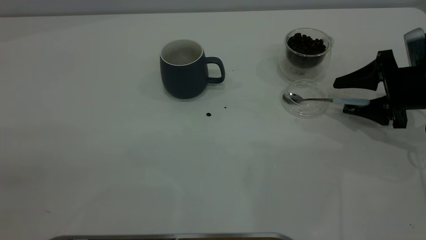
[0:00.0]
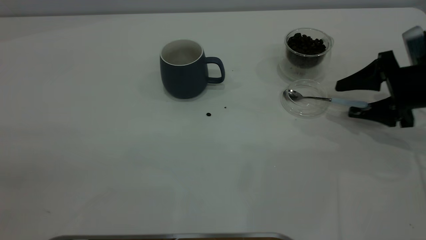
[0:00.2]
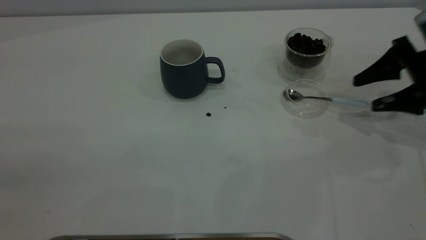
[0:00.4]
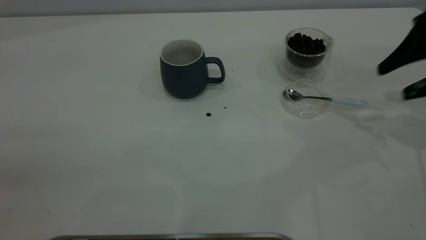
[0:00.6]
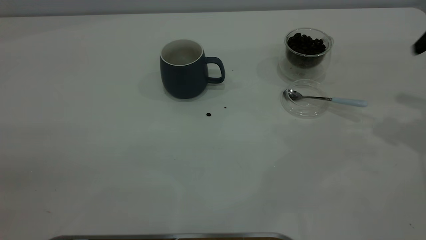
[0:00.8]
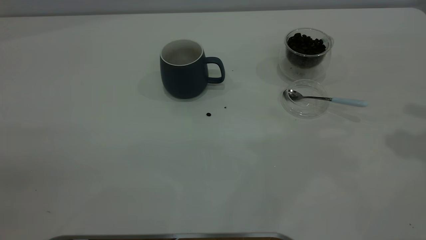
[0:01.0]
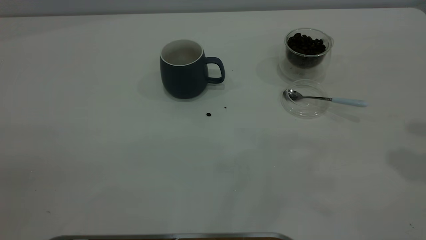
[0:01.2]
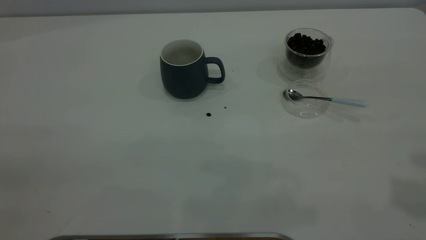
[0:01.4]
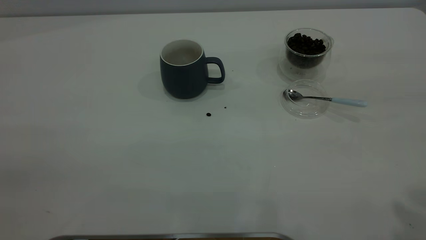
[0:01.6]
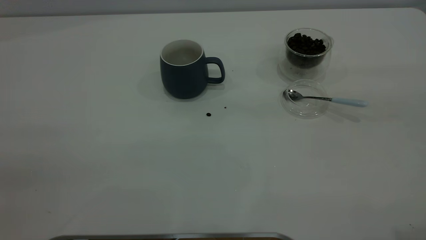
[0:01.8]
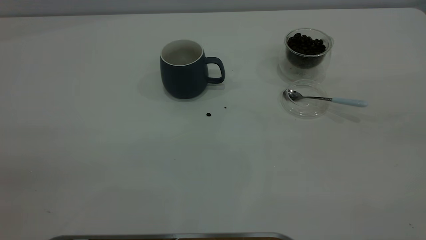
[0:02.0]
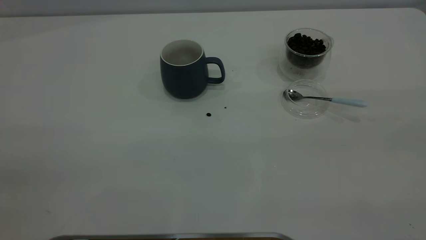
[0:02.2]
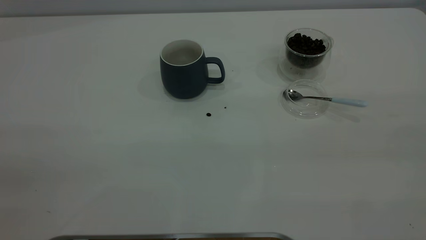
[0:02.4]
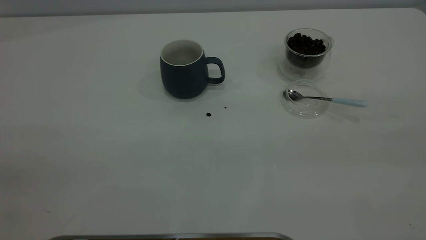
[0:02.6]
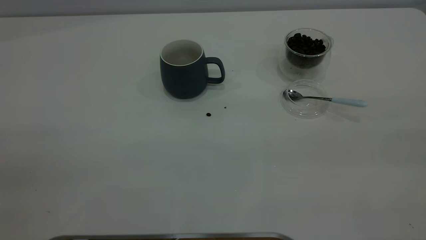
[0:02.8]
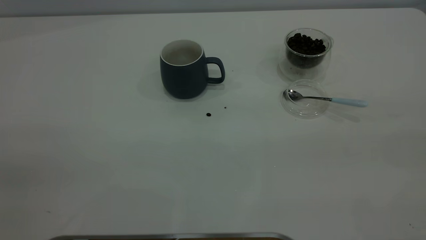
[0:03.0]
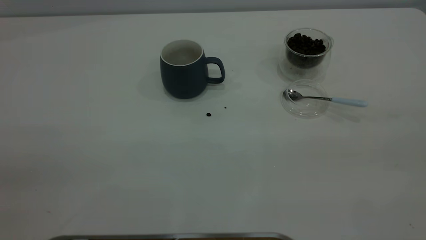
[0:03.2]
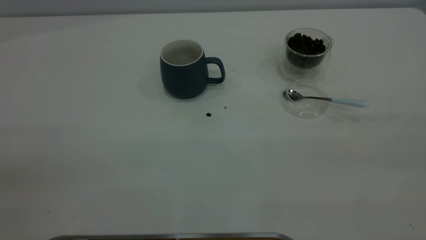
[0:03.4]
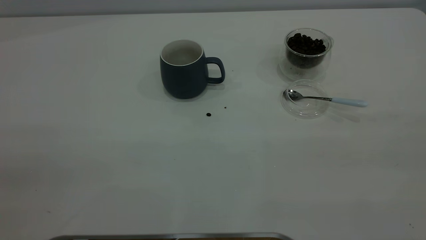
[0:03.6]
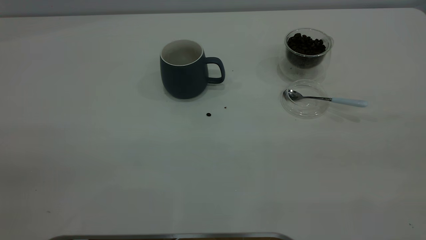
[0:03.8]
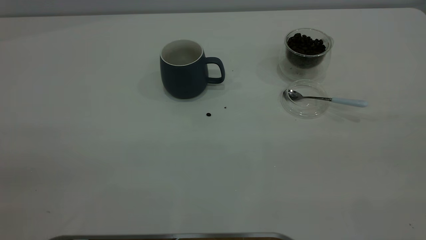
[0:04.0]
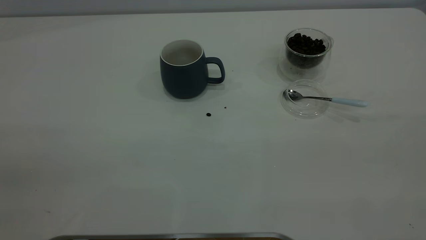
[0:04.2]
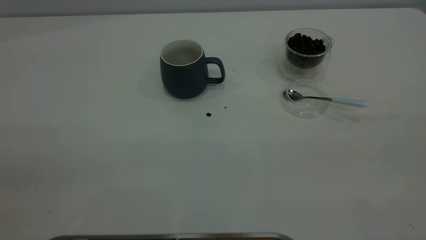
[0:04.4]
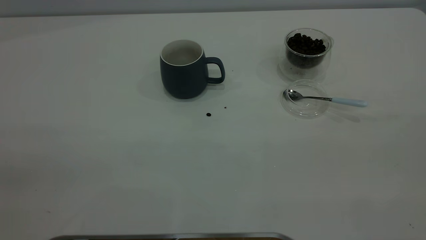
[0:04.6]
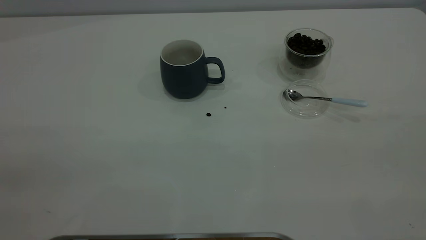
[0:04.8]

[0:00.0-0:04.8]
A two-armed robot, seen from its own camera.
Task of the whole recording: the left gripper place the grey cup in the center of the table, the right gripper take the blue spoon from the cup lid and scoop out the coffee beans from the coffee cup and put them into the grey cup, the right gripper put the spoon back into the cup lid.
0:00.0 to 0:01.6: The right gripper shifts about 40 cm upward and backward.

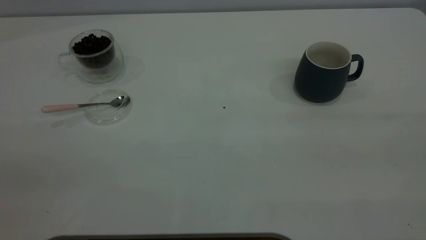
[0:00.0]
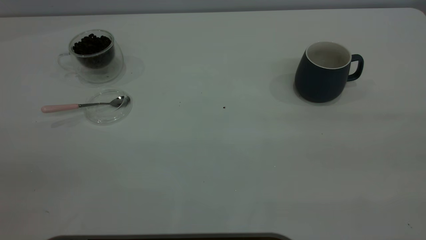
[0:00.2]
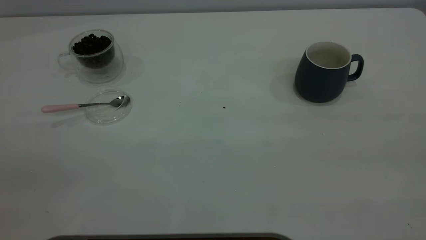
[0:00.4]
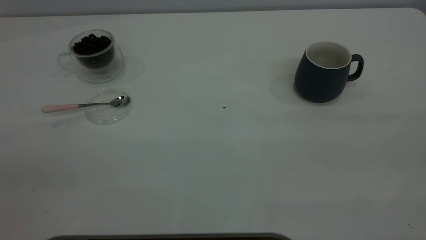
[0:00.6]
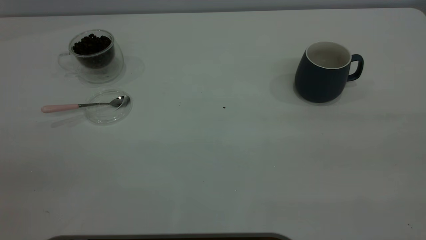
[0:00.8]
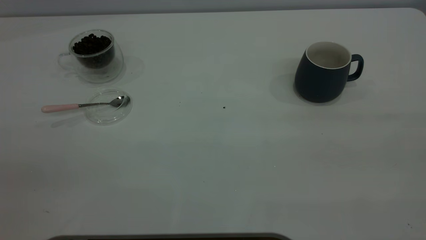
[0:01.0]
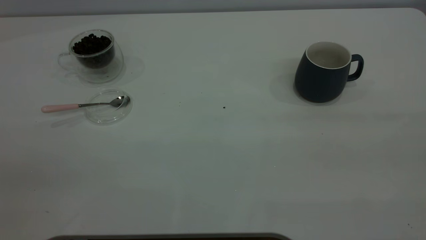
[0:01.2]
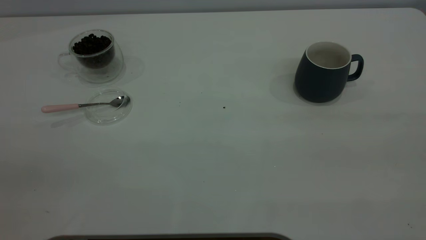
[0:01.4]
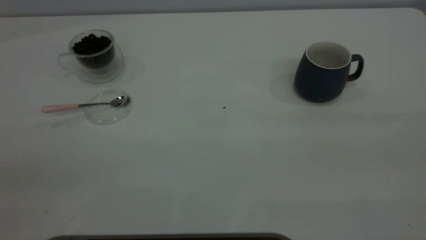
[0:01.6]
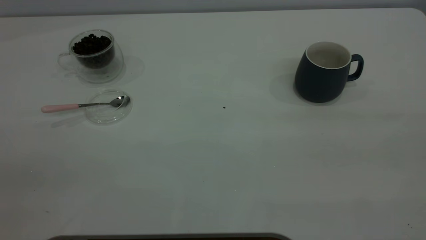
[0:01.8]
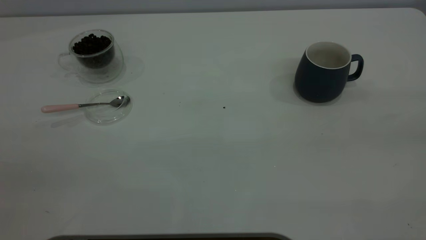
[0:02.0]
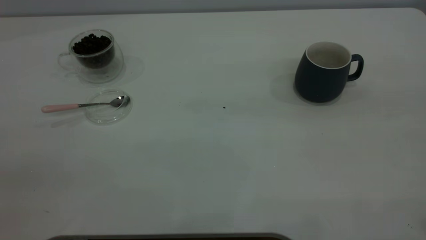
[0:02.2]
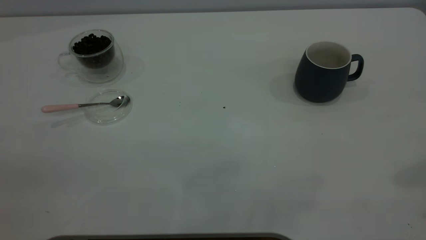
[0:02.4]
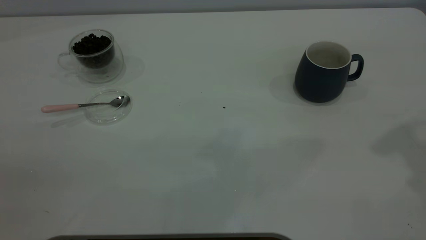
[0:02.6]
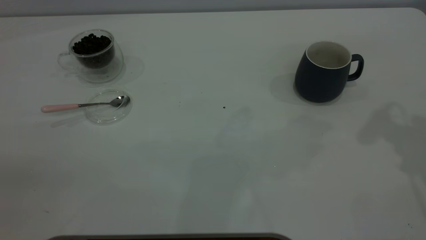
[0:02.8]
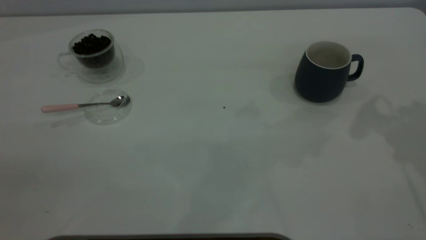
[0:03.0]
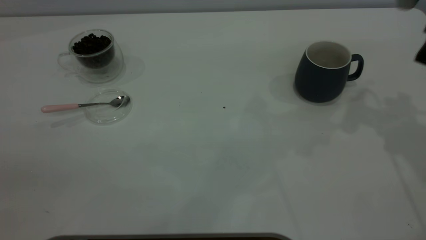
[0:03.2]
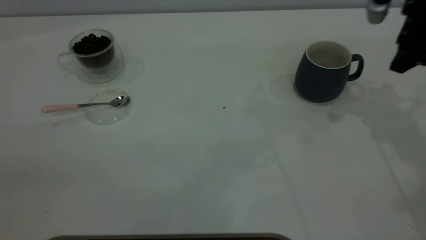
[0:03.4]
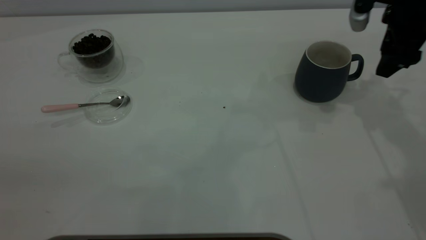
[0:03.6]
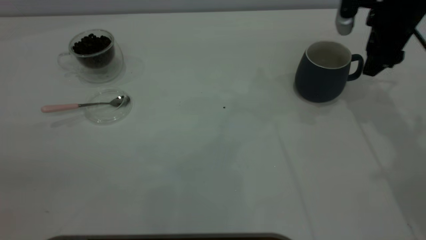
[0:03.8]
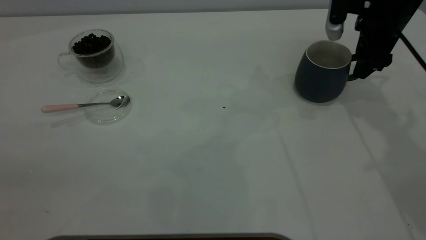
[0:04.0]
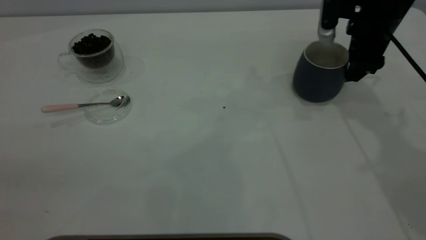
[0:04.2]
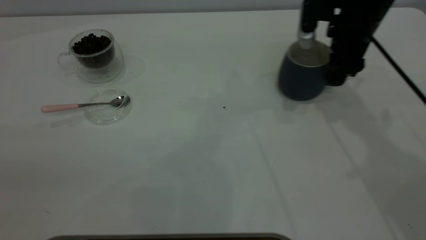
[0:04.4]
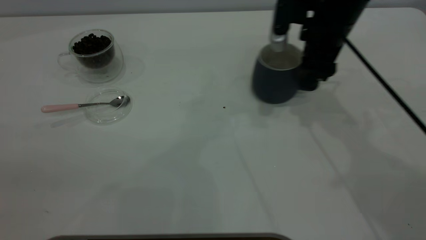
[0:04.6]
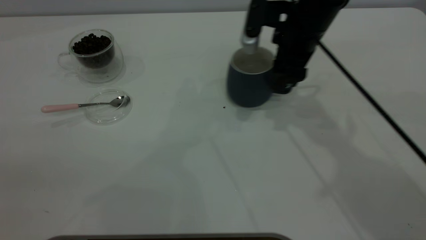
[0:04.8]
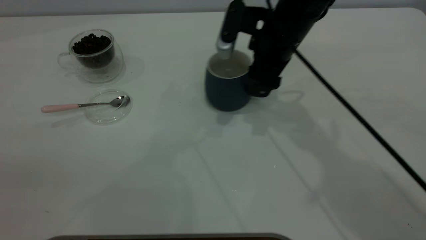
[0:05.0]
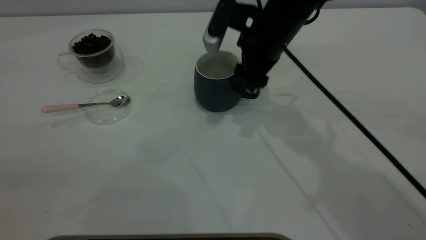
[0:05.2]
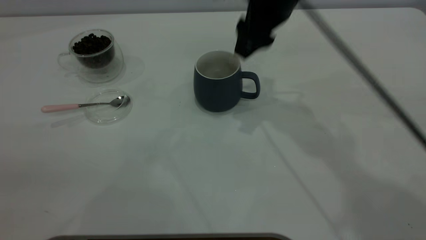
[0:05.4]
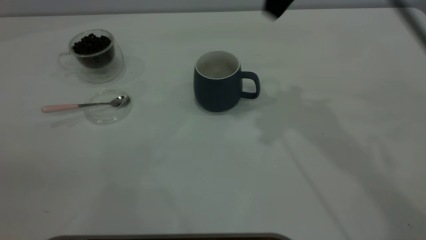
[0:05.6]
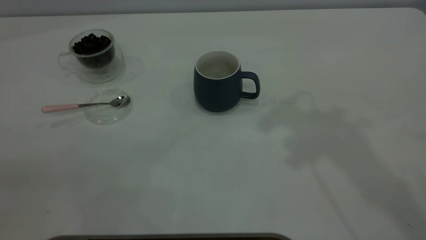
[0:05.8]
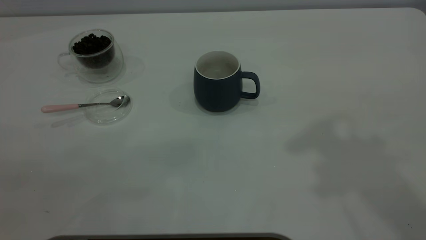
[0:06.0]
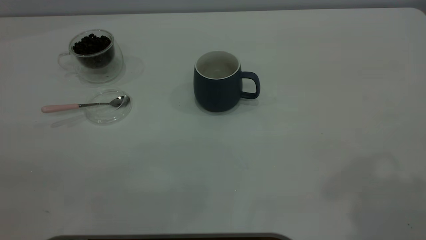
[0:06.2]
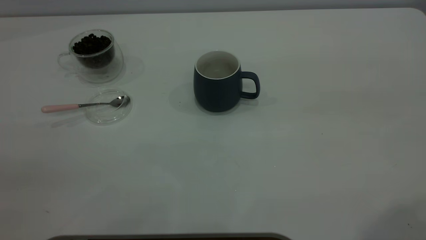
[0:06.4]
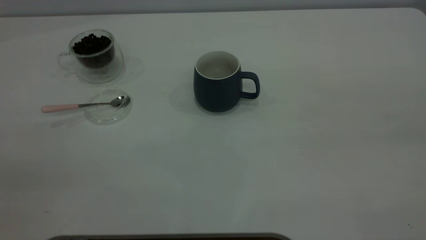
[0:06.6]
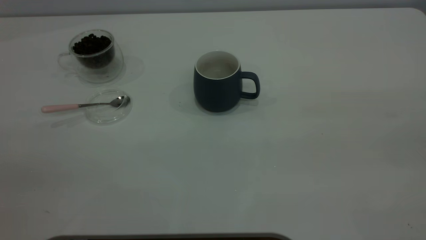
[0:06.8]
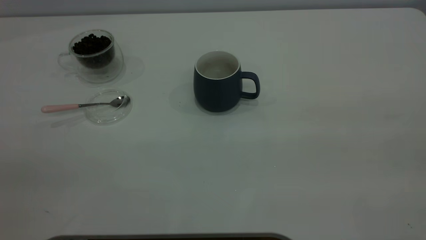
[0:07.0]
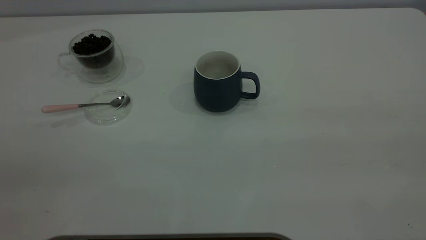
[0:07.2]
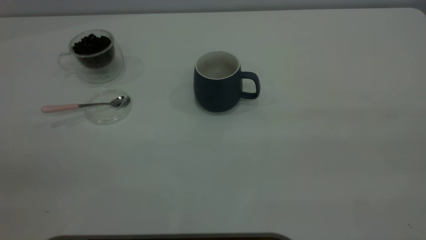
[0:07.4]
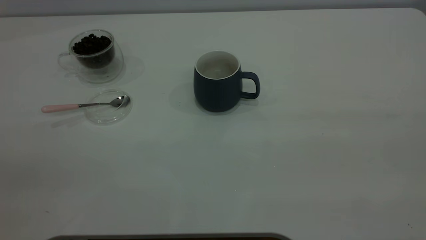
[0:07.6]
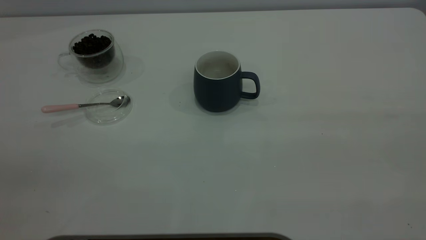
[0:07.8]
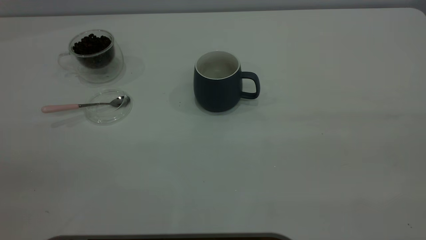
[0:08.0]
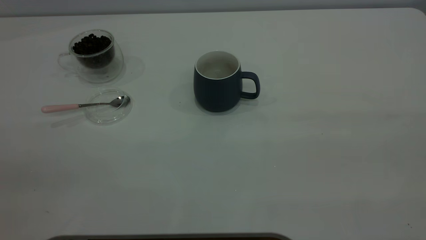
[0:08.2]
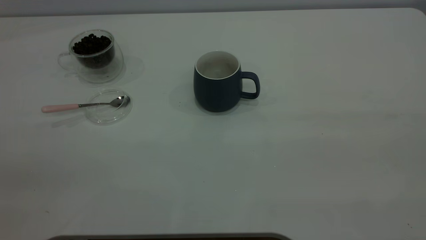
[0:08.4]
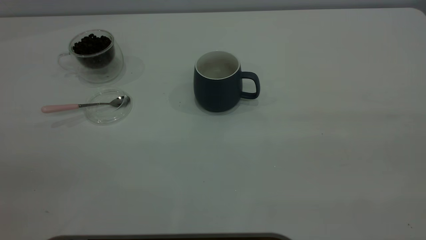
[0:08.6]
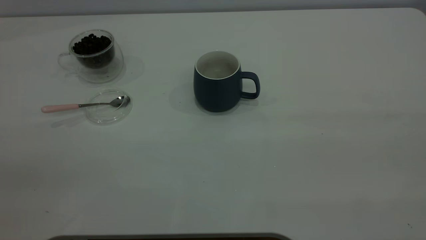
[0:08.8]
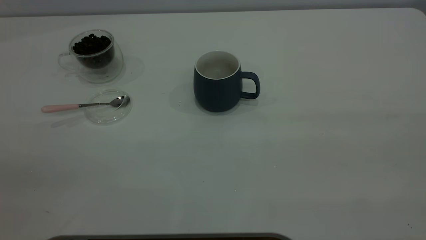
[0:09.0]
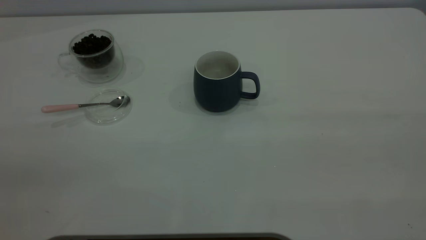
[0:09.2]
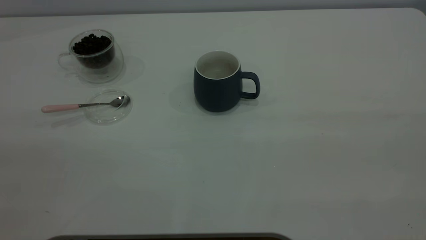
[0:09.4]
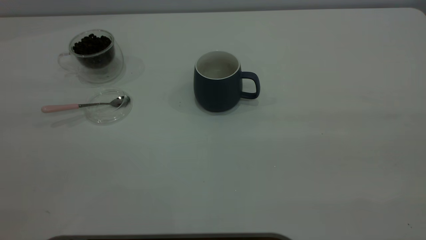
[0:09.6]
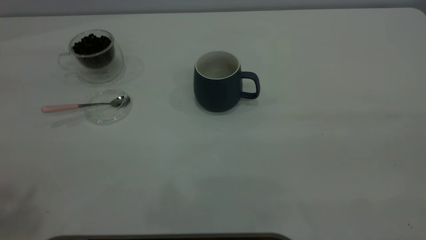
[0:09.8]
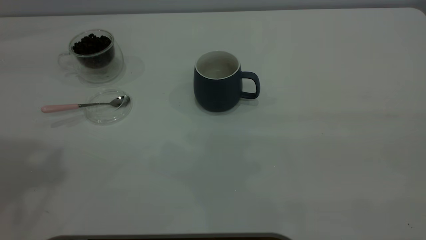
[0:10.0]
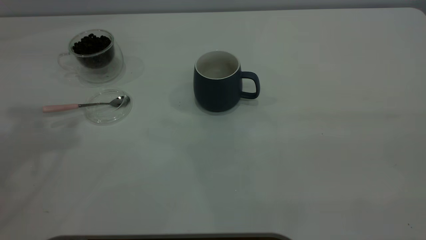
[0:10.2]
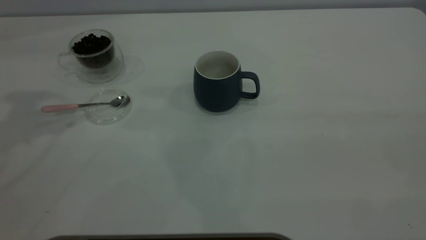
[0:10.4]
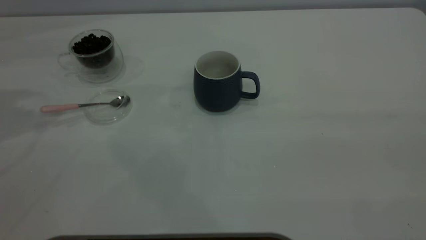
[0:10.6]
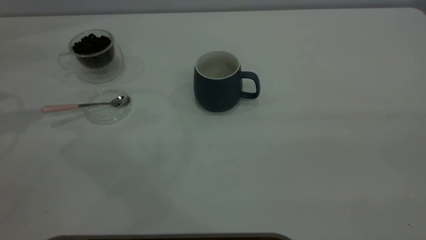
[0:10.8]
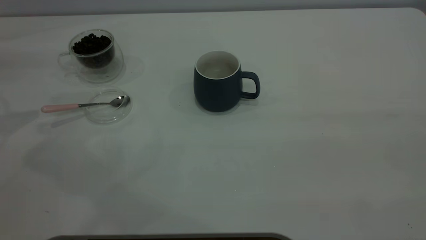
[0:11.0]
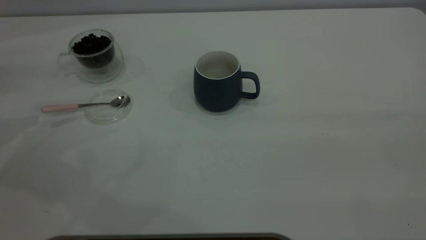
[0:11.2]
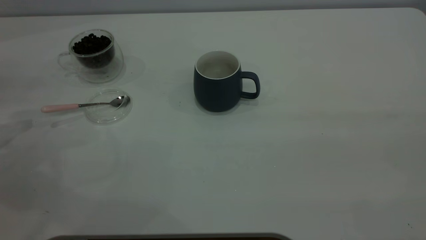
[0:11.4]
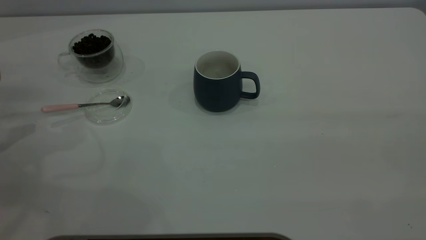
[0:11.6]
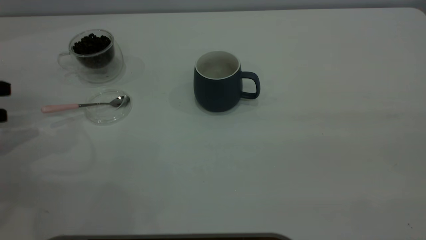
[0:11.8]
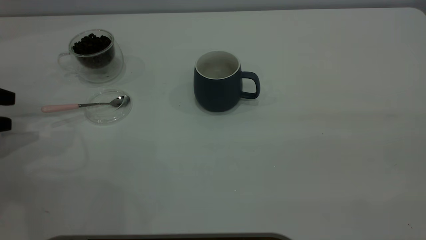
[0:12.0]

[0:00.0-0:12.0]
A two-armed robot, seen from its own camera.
Task of the whole recording: the right gripper place the grey cup in the center of the table, the left gripper take the pink spoon from the cup lid and scoop out the coffee beans from the coffee cup and put them into the grey cup, the left gripper put the spoon back into the cup lid.
Step, 0:00.0 to 0:05.4: Move the cup to the center of view.
0:00.0 to 0:01.6: Both grippers stay put.
0:03.0 to 0:04.4: The right gripper heads downward, to the left and forward, covering roughly 20 cm.
0:04.4 to 0:06.0: The right gripper moves upward and backward, approximately 35 cm.
0:07.6 to 0:09.0: The two grippers keep their place.
0:10.4 to 0:12.0: The left gripper goes approximately 30 cm downward and to the left.
